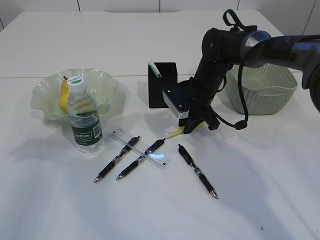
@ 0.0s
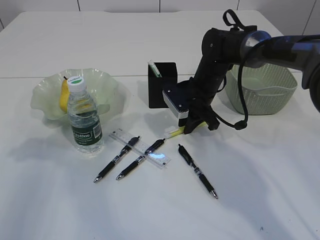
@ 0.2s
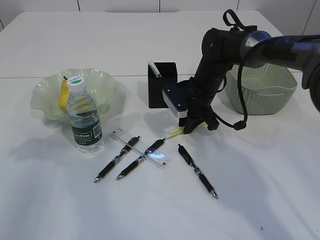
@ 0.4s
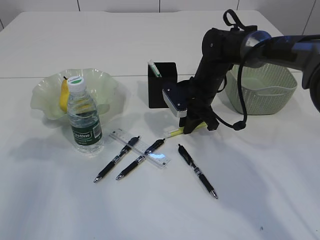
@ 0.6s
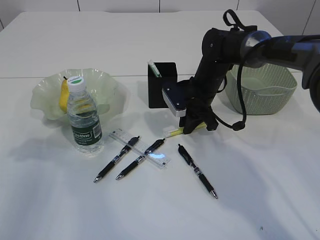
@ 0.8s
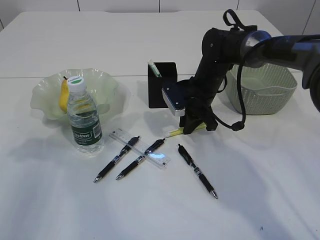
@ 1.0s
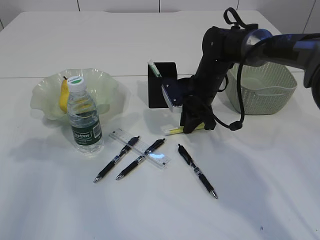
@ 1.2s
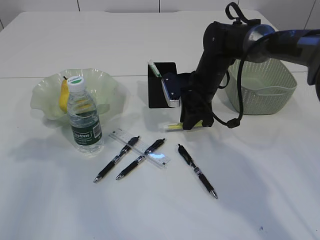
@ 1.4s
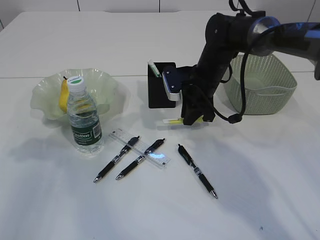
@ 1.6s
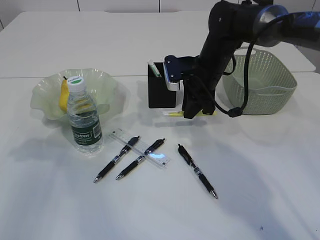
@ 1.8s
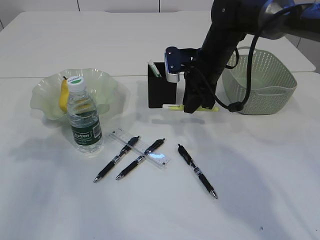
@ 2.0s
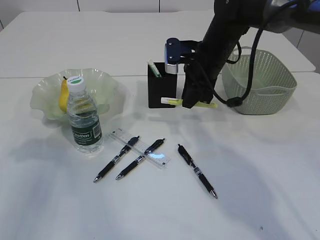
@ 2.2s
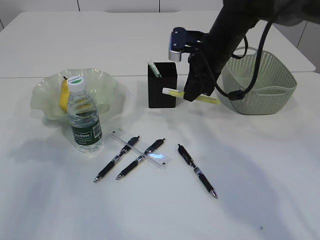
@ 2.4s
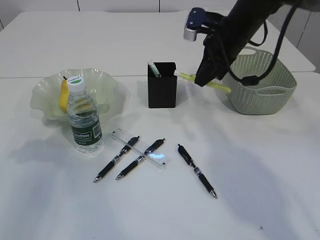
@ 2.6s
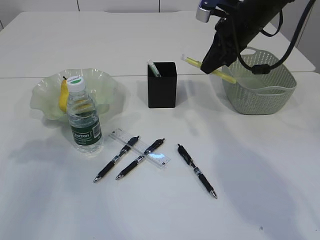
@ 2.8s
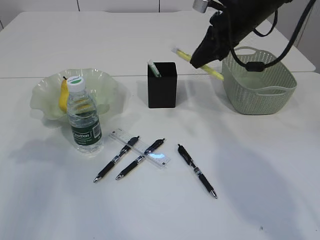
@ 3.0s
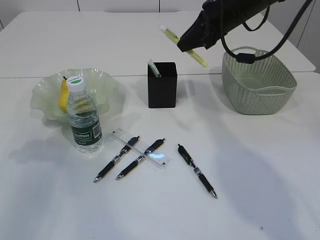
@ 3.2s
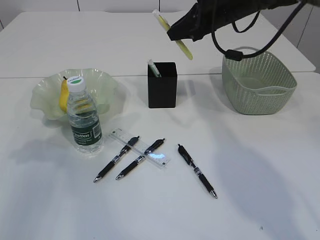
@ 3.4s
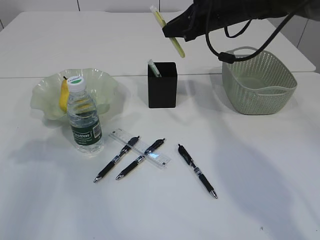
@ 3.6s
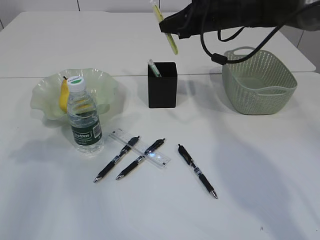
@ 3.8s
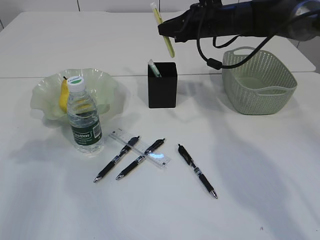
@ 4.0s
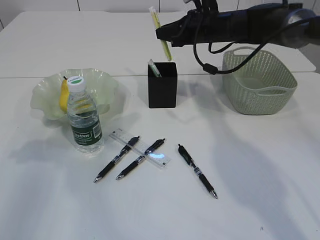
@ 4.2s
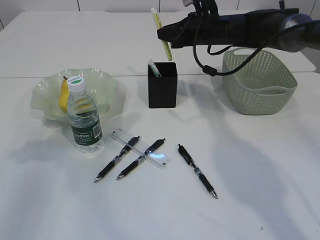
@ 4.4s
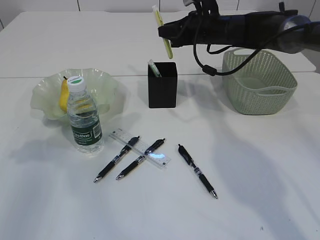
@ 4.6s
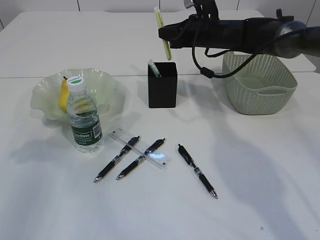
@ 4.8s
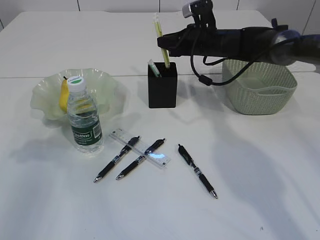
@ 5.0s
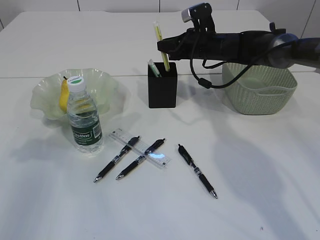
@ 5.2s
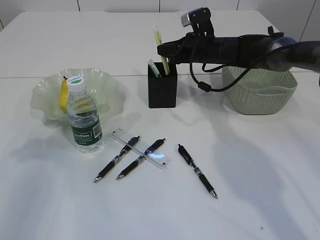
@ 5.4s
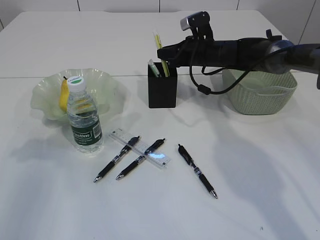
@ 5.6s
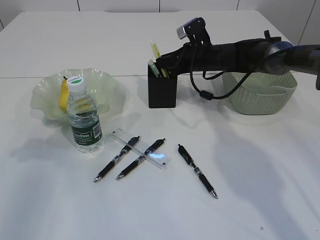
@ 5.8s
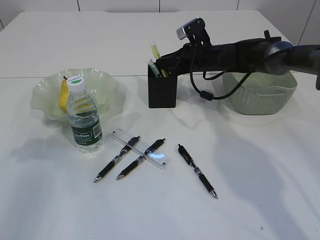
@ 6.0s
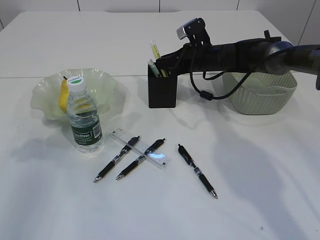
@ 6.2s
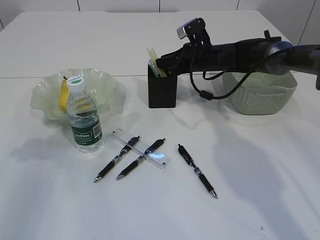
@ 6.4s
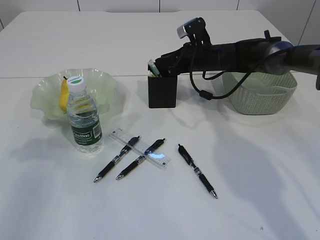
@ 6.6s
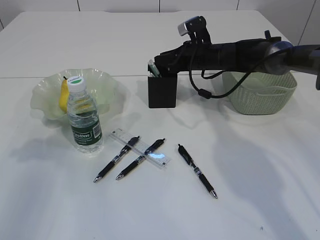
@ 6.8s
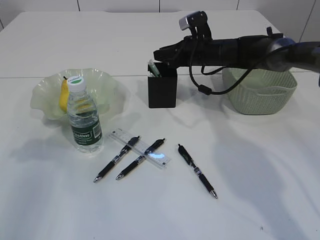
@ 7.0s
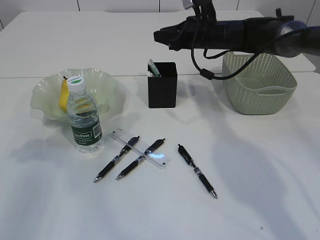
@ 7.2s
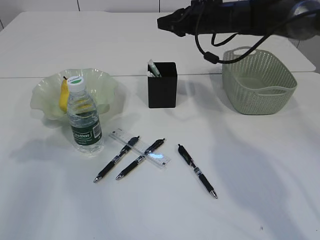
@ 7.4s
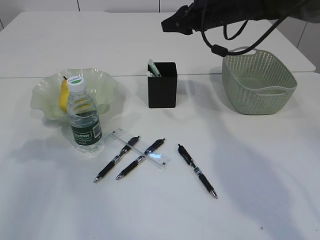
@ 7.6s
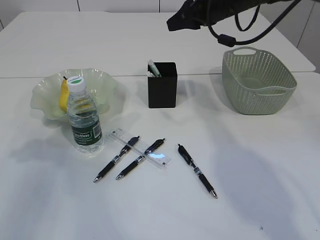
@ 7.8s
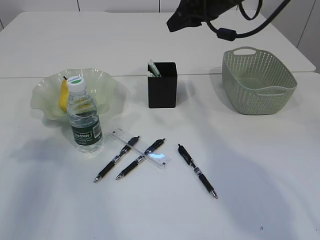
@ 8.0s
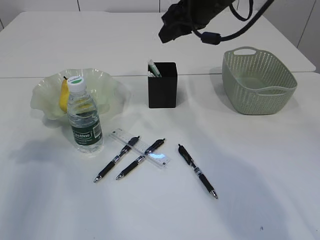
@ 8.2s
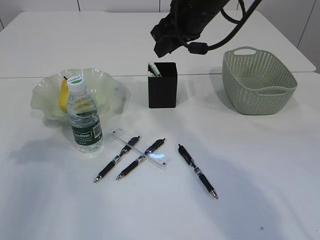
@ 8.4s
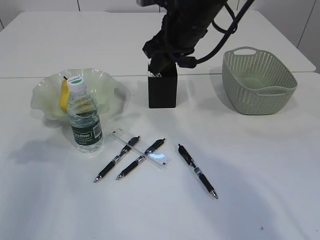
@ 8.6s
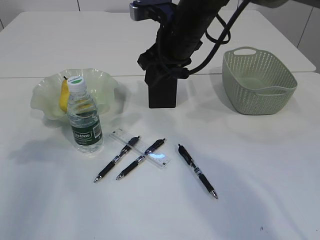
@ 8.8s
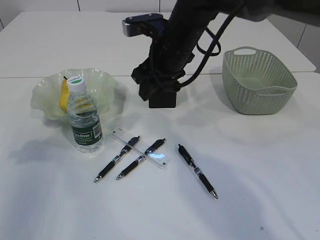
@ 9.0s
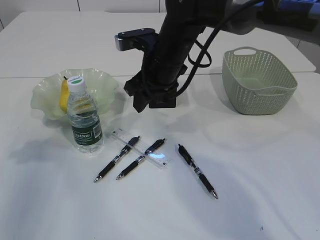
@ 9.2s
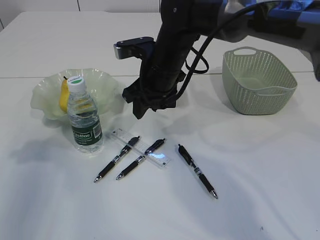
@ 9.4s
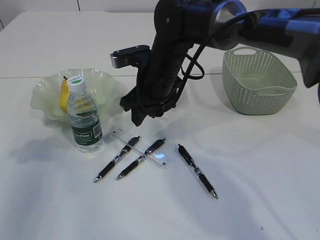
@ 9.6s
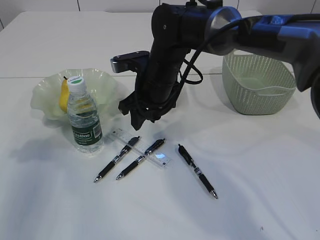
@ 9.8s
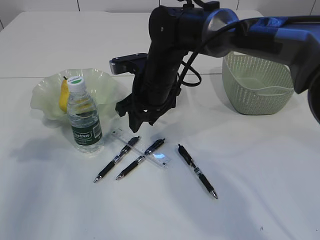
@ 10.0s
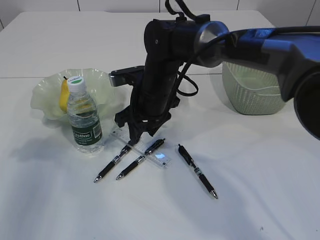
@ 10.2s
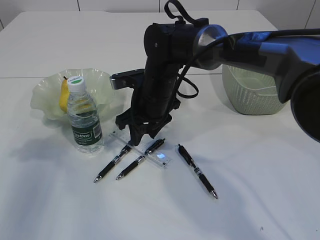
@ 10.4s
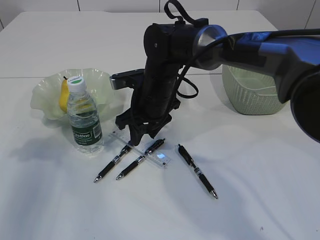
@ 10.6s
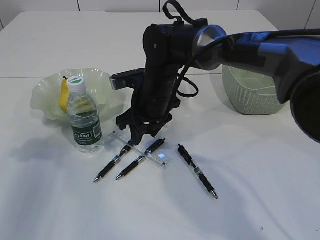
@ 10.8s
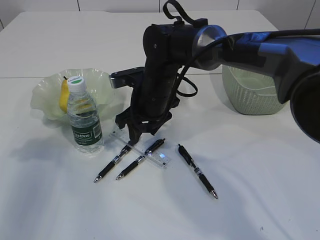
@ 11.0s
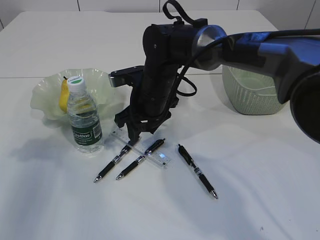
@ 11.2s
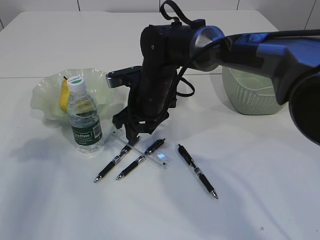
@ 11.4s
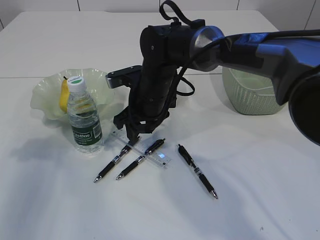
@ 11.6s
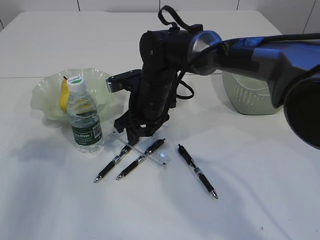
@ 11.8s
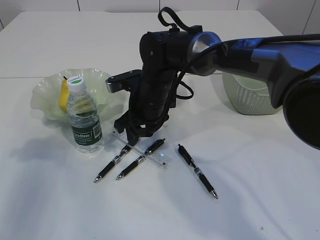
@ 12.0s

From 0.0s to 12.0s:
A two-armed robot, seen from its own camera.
Step, from 0.0s to 2.0s: pick up the yellow knife.
Step, from 2.2s to 7.2s: place the yellow glue into the pen holder.
From 0.0s to 1.6s: The grippers move only a little.
From 1.6s to 3.0s: The right gripper moves upward and to the right, about 15 cm.
From 3.0s to 4.4s: The right gripper moves forward and downward, some 10 cm.
From 4.4s to 6.0s: The right gripper travels downward by roughly 5 cm.
From 6.0s to 7.6s: The right gripper goes some 10 cm upward.
From 7.6s to 9.0s: The right gripper goes approximately 15 cm to the left and backward.
From 9.0s to 10.4s: The right gripper shifts some 10 cm downward.
From 10.4s to 12.0s: The grippers make only small movements.

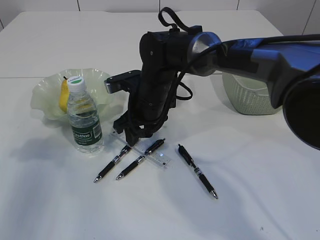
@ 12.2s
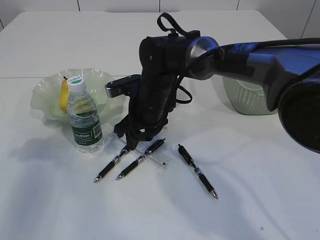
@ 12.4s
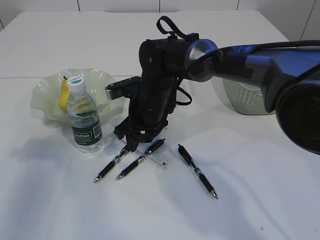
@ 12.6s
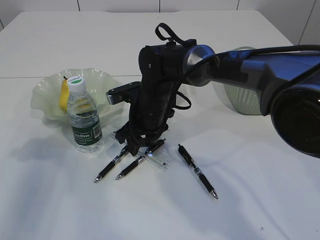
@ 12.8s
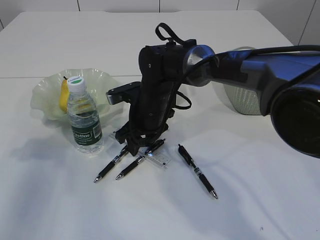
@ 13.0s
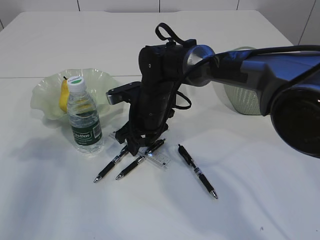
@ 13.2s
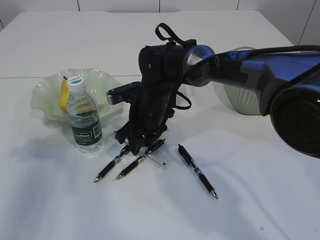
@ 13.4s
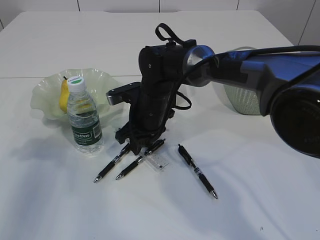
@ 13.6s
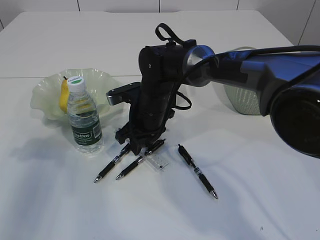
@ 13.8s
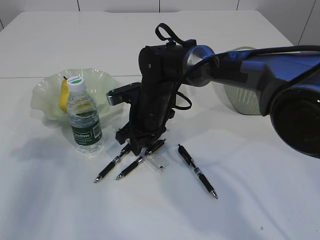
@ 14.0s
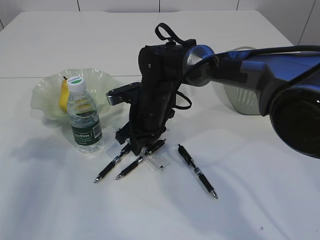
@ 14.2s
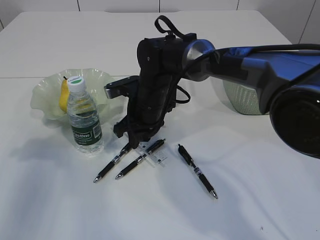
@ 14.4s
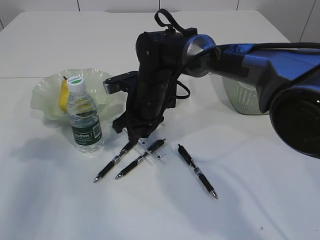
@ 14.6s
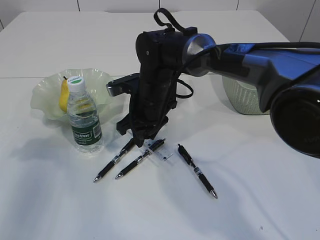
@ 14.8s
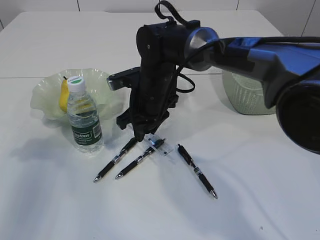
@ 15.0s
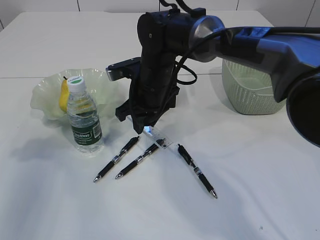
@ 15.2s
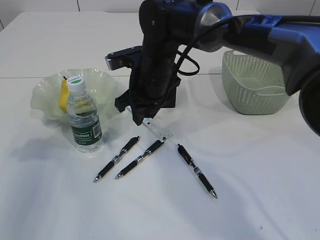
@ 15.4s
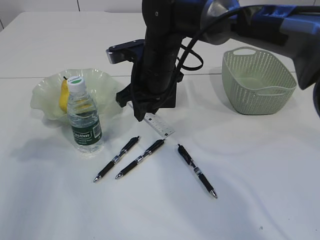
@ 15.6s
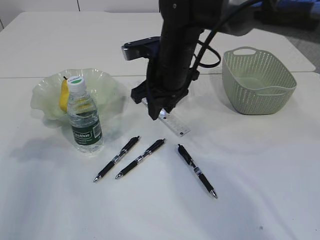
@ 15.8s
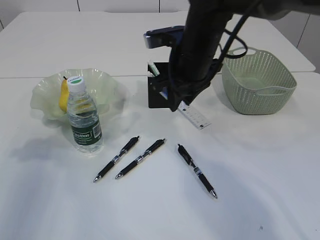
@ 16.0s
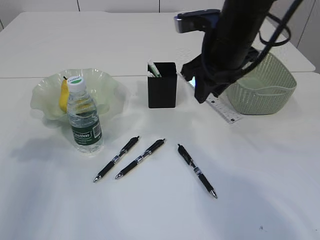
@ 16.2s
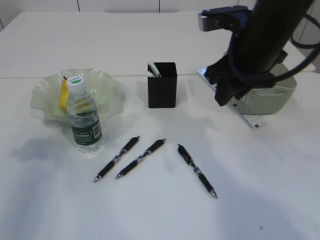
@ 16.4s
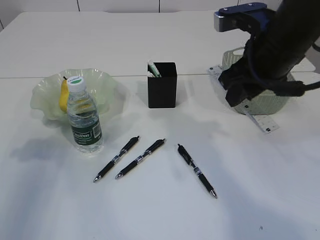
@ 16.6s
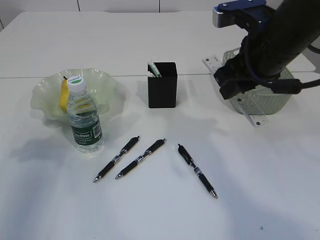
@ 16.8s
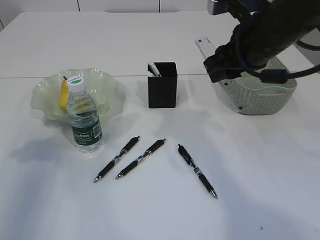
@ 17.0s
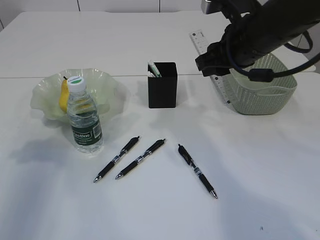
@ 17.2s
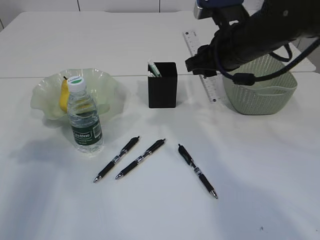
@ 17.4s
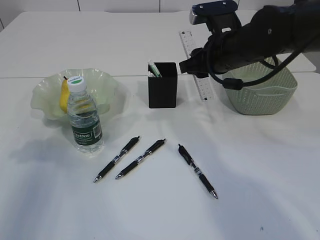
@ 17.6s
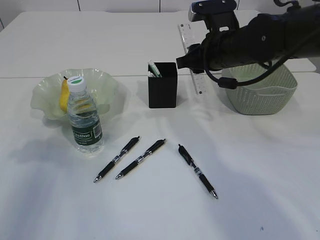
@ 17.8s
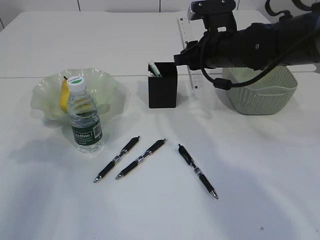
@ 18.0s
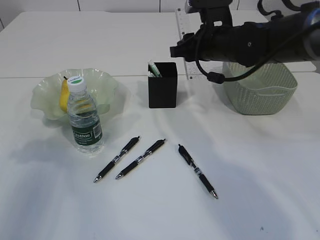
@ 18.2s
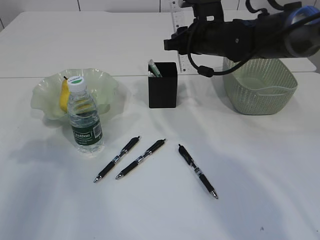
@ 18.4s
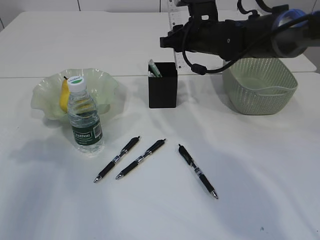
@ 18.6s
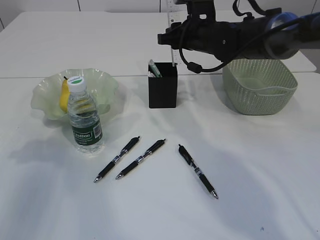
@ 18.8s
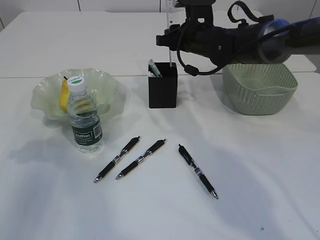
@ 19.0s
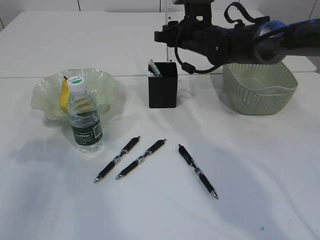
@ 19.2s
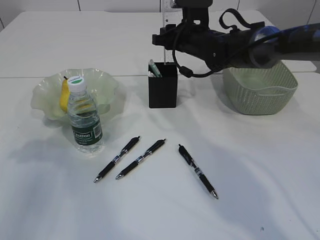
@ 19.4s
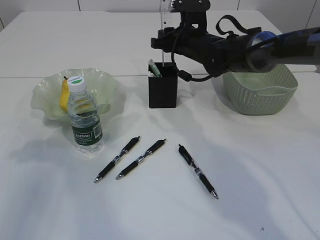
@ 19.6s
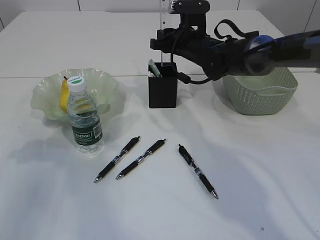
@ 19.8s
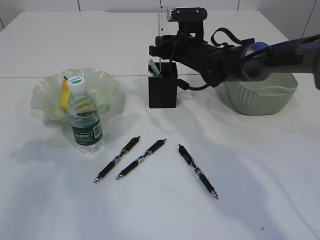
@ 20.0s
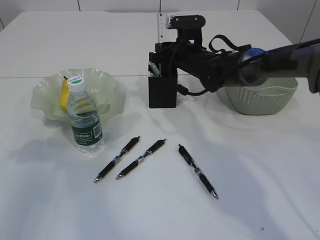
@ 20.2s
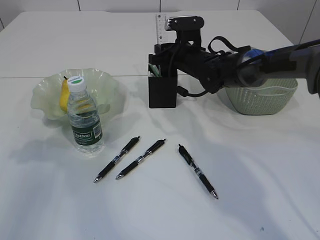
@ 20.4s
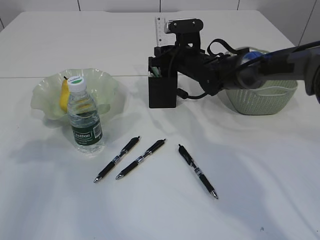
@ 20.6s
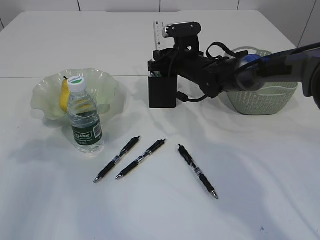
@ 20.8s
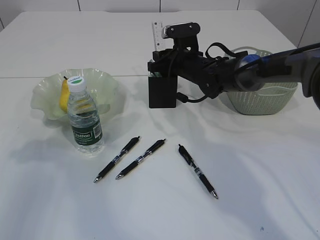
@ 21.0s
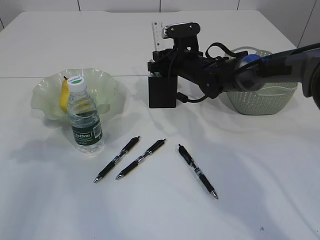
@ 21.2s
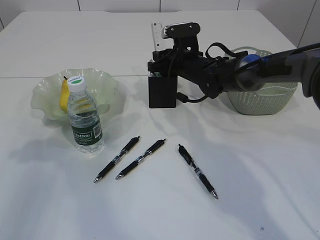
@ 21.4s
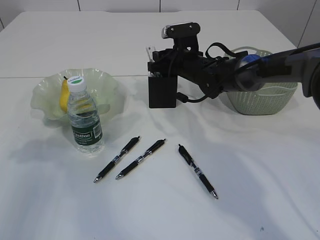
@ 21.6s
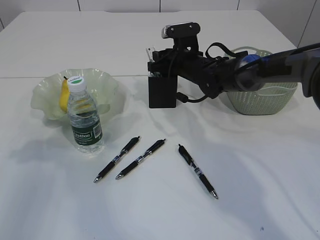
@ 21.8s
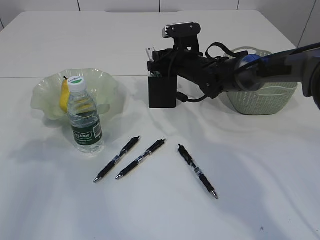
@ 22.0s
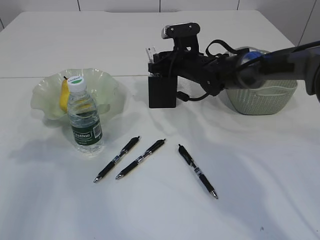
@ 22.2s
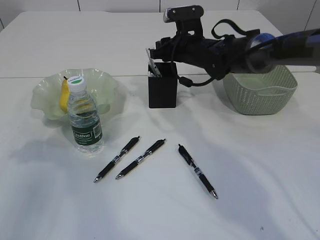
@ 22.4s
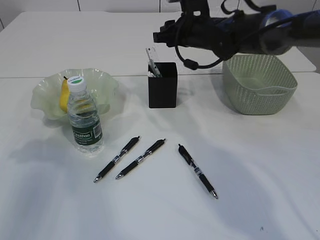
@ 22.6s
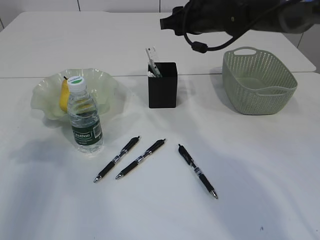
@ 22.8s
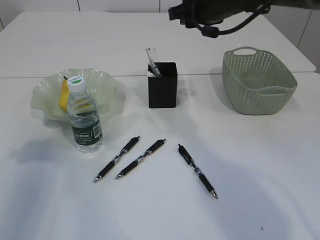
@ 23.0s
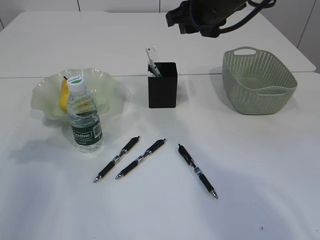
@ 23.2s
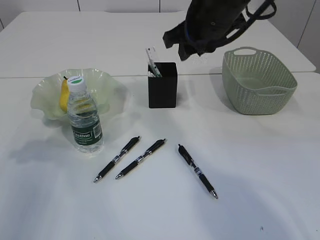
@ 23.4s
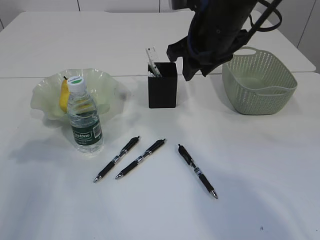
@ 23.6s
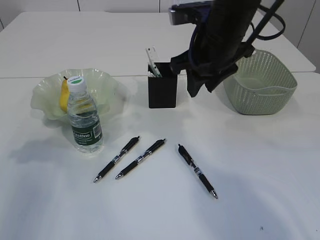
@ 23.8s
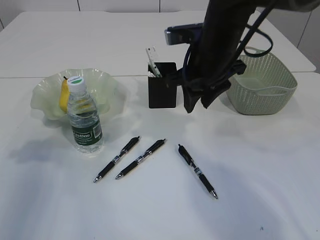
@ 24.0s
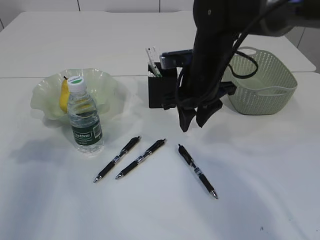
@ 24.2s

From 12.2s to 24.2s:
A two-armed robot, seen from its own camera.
Step, from 12.2s to 15.4s: pick up the ruler.
Step, from 15.6s to 23.0s: Place the ruler into the pen holder.
From 12.2s to 13.8s: The grippers move only a little.
From 13.8s to 15.2s: The right gripper heads upward, covering about 5 cm.
From 15.2s to 16.6s: The right gripper goes about 20 cm to the right, upward and backward.
From 16.6s to 18.2s: The right gripper moves forward and downward, approximately 15 cm.
From 18.2s to 19.8s: The right gripper is displaced forward by approximately 5 cm.
From 19.8s to 21.2s: There are only small adjustments of the grippers.
From 21.2s to 22.6s: The right gripper moves upward, approximately 10 cm.
From 22.6s to 24.2s: The right gripper is displaced backward by roughly 10 cm.
